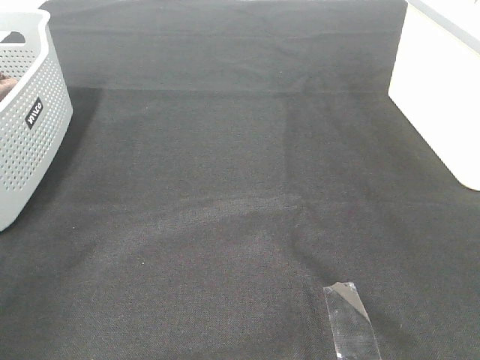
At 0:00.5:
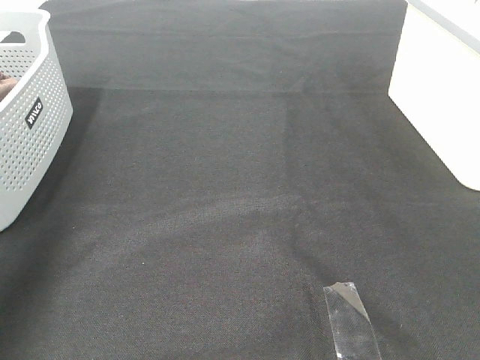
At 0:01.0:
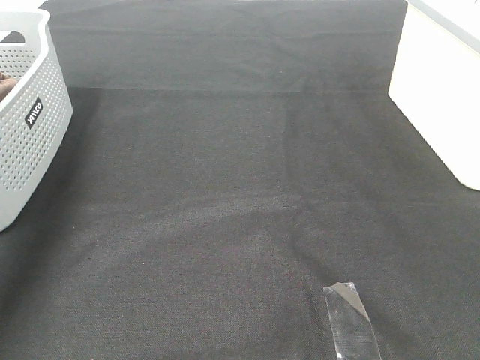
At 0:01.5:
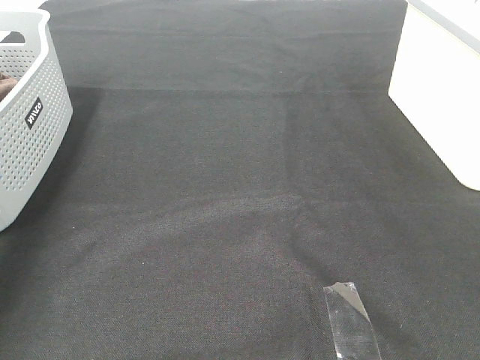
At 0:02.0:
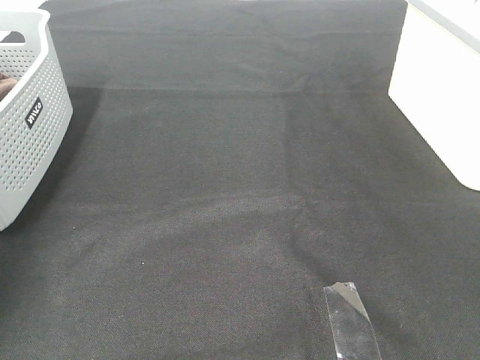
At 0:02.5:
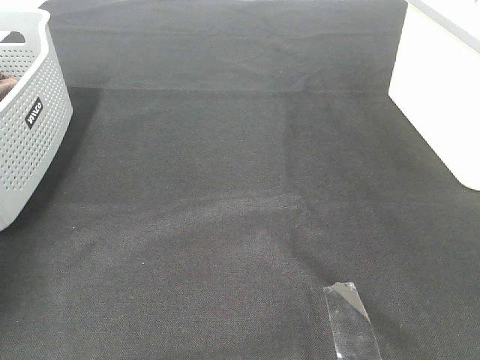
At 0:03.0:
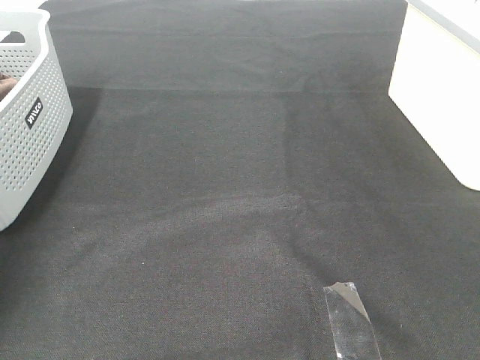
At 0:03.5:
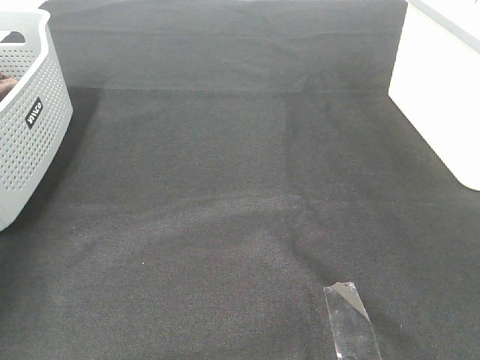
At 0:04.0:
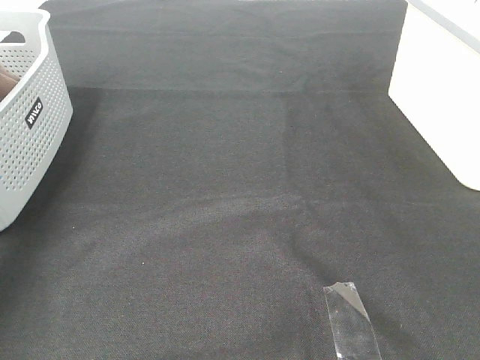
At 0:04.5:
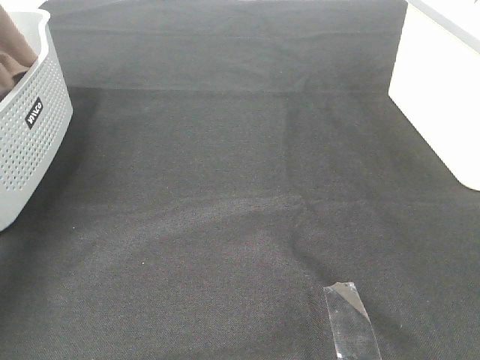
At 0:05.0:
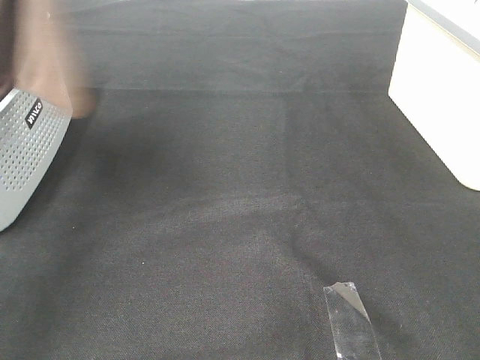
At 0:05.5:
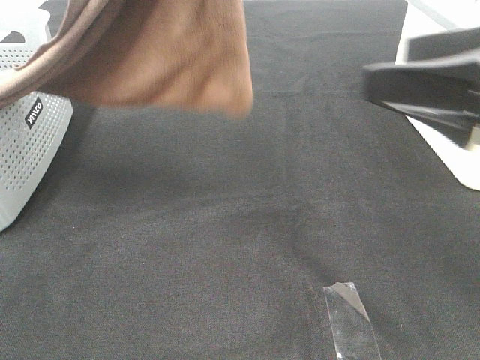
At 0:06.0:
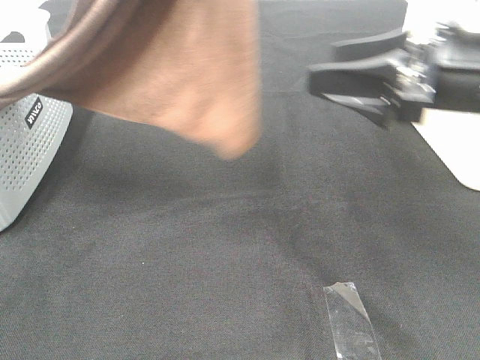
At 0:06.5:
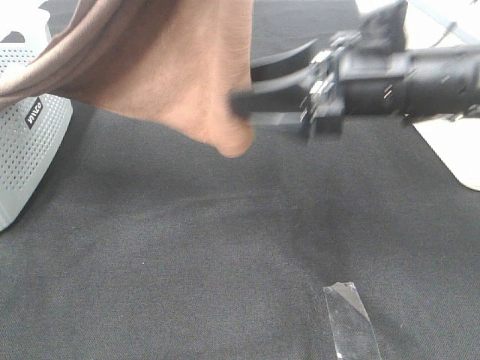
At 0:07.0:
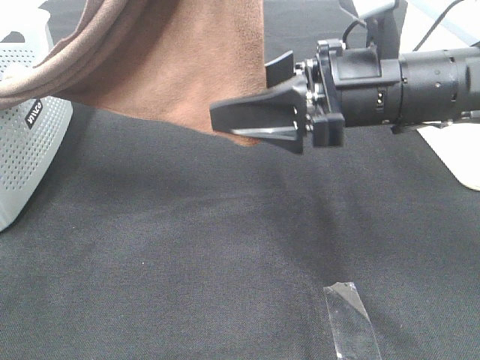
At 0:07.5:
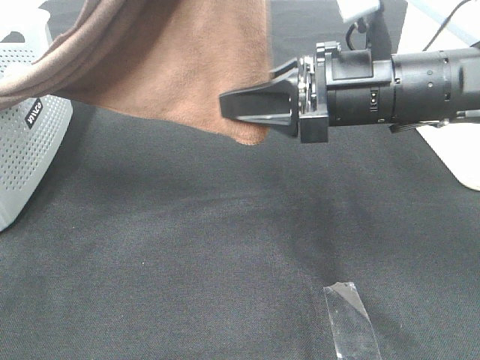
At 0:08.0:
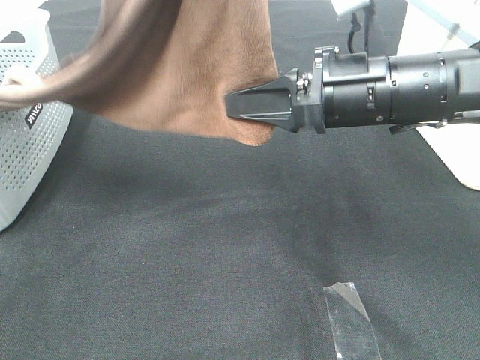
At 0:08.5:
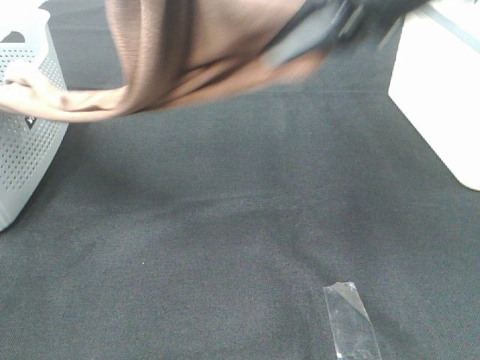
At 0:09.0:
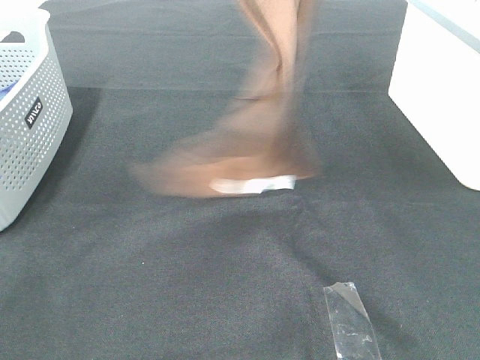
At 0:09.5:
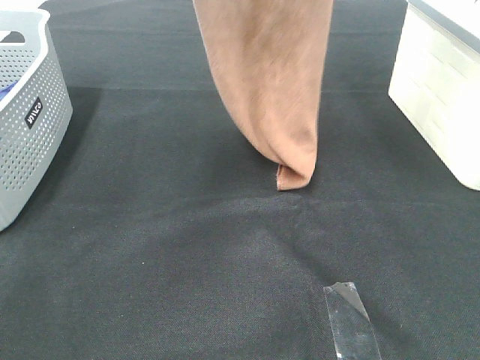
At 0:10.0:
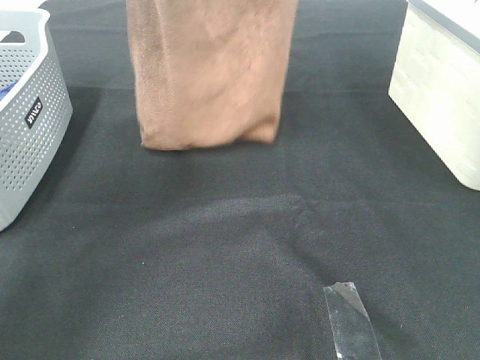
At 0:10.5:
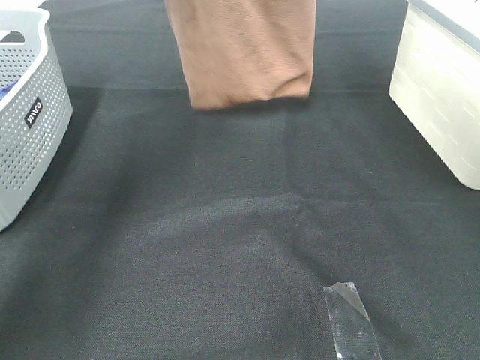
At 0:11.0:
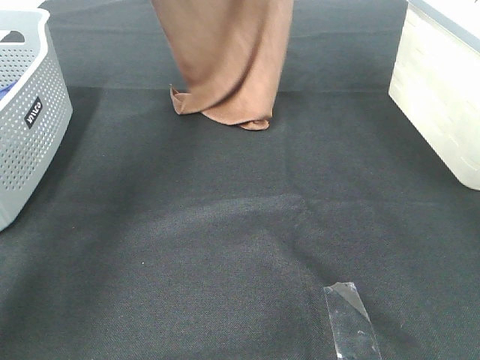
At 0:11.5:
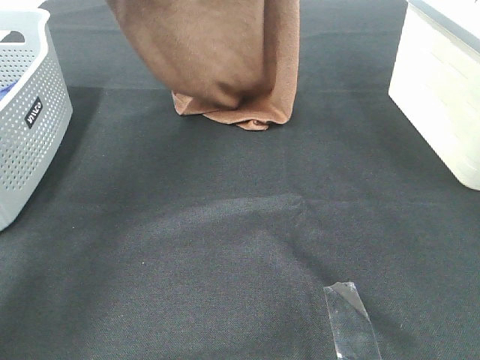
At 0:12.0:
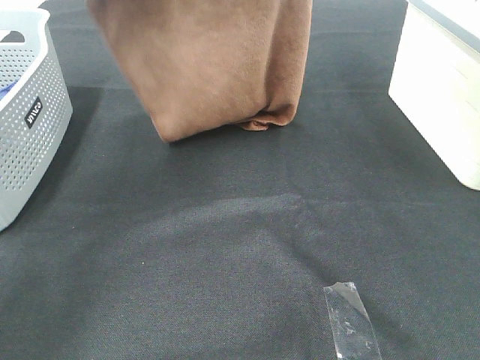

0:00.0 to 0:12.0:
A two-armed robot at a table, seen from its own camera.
Task of the whole recording: Remove the towel and place it.
Step, 0:04.5 to 0:07.0: Right hand: grab a corner of the brown towel and straighten it.
0:00.0 to 0:02.0: The left gripper shifts some 40 cm forward and downward.
0:04.0 to 0:06.0: The left gripper shifts roughly 30 cm to the right and backward. Meanwhile the right gripper goes about 25 cm forward.
0:06.0 to 0:08.0: The right gripper moves to the left, approximately 5 cm, and closes its fingers.
0:08.0 to 0:10.0: The left gripper is displaced forward and to the left by roughly 20 cm, while the right gripper heads upward and forward, covering about 30 cm.
0:10.0 to 0:12.0: The left gripper travels downward and backward by roughly 10 cm. Meanwhile the right gripper is displaced backward by approximately 5 cm.

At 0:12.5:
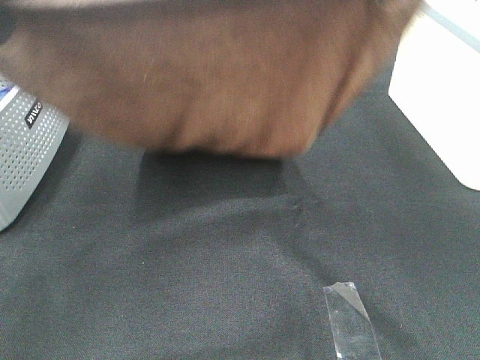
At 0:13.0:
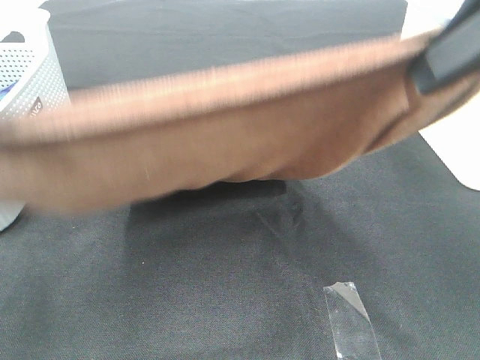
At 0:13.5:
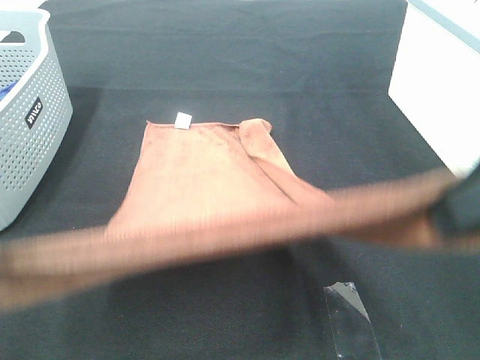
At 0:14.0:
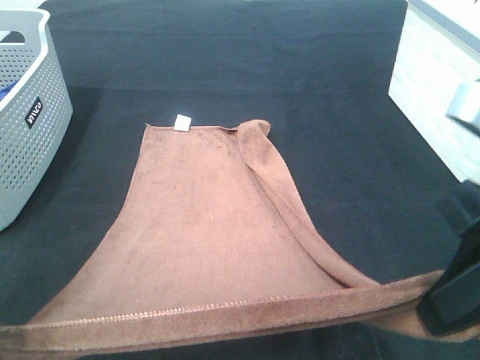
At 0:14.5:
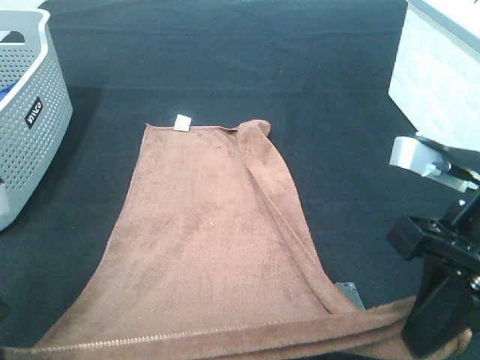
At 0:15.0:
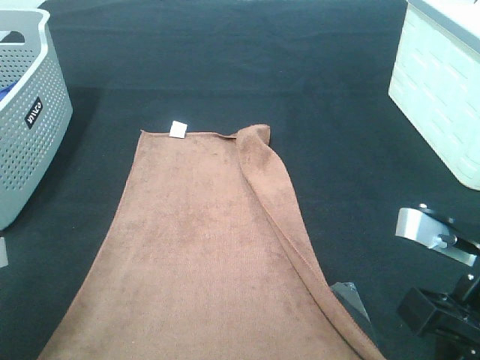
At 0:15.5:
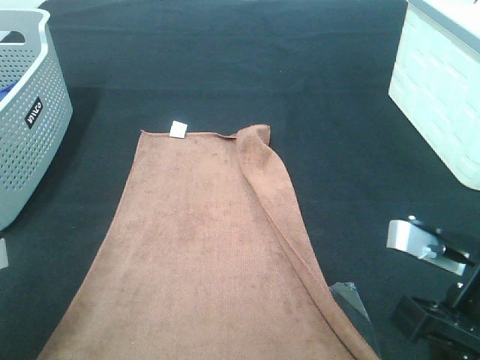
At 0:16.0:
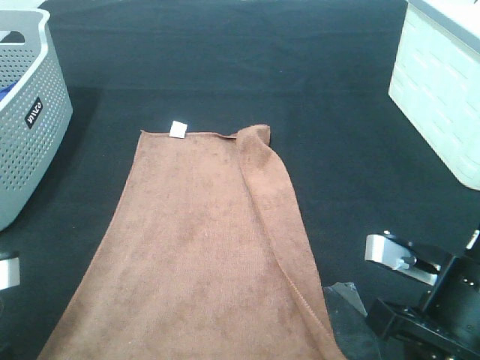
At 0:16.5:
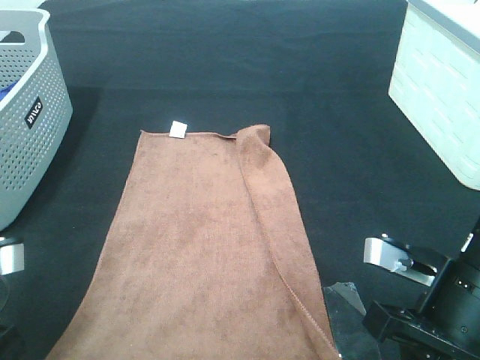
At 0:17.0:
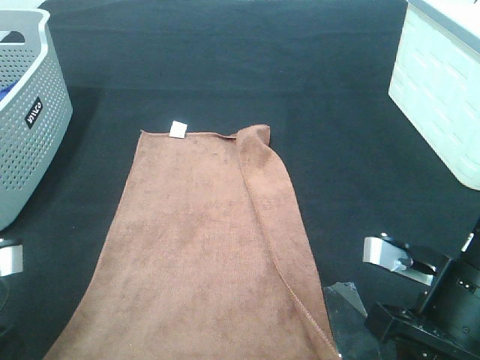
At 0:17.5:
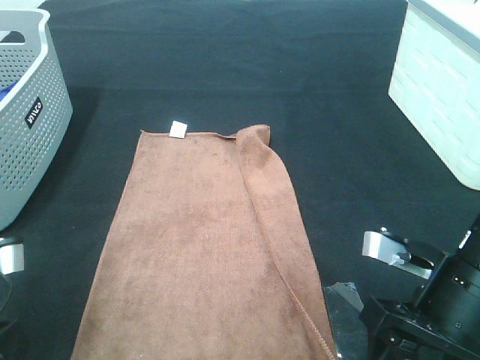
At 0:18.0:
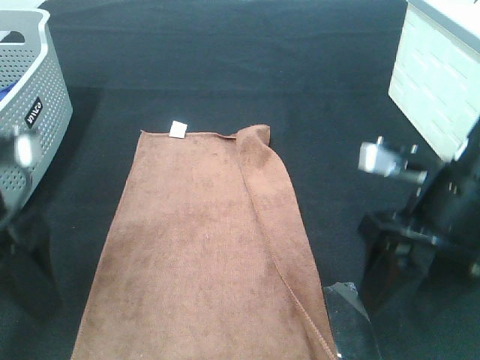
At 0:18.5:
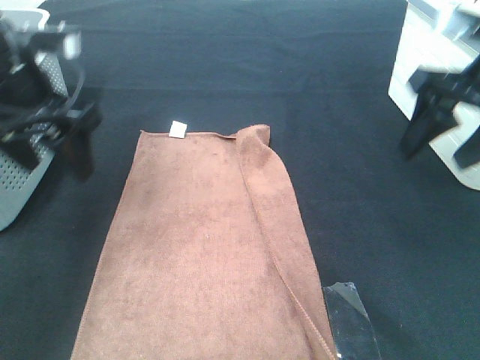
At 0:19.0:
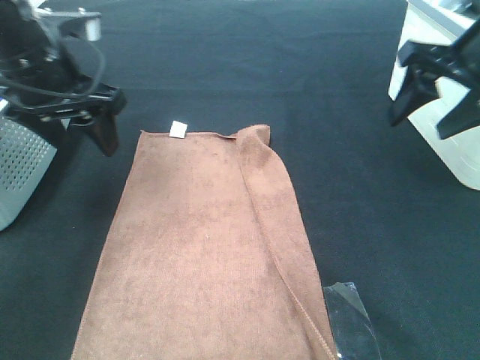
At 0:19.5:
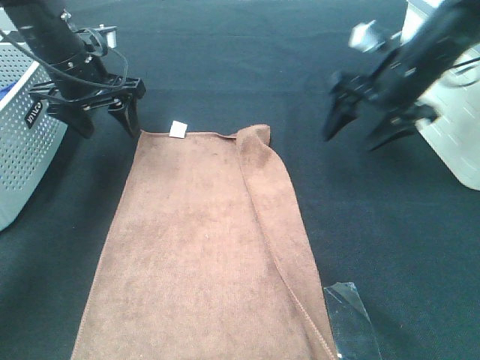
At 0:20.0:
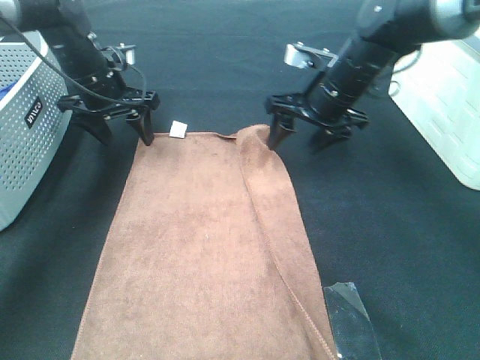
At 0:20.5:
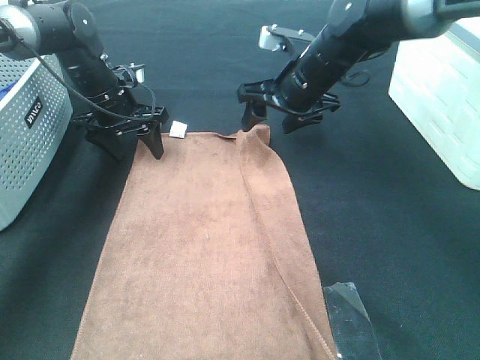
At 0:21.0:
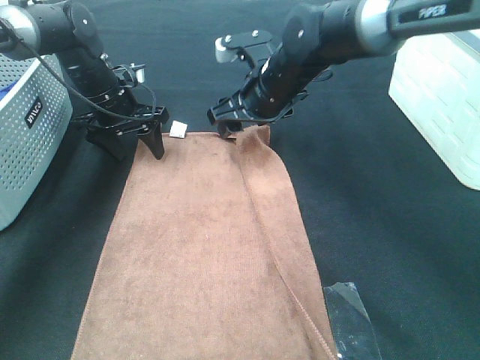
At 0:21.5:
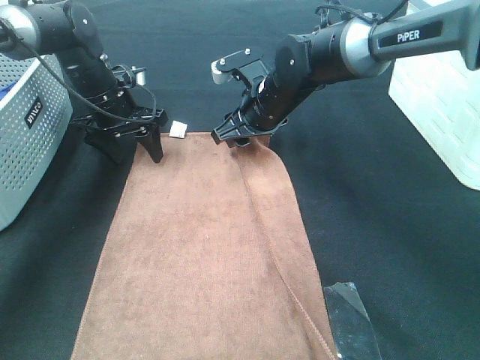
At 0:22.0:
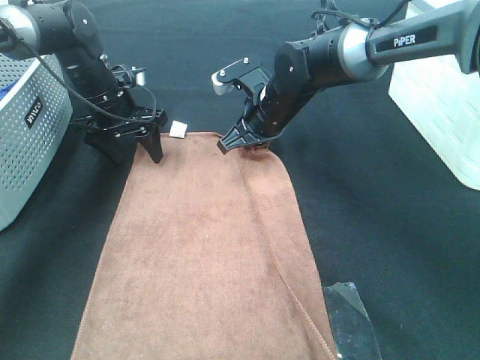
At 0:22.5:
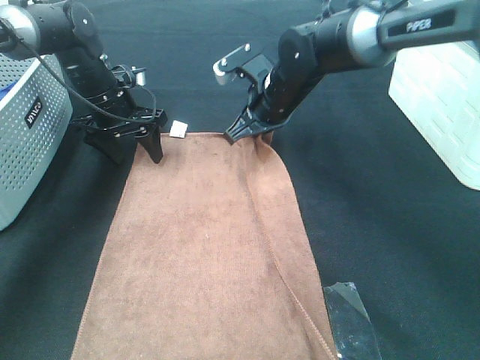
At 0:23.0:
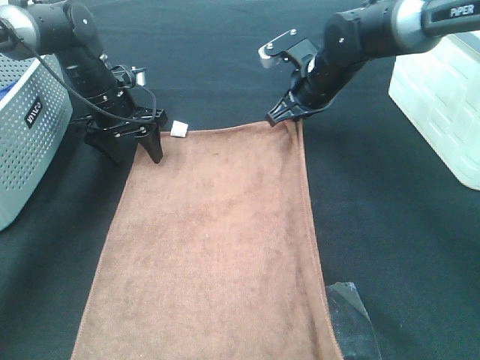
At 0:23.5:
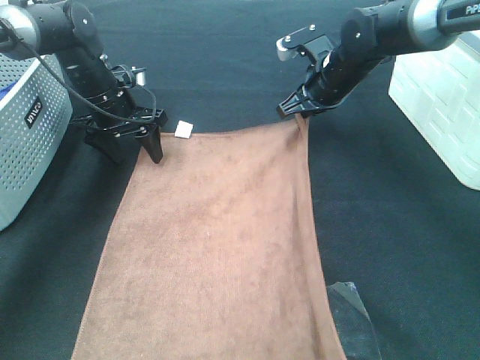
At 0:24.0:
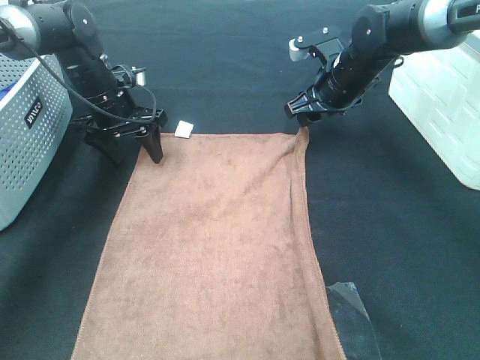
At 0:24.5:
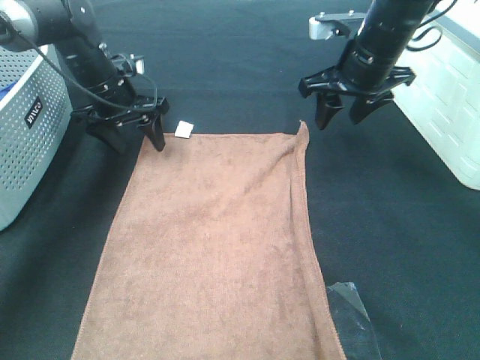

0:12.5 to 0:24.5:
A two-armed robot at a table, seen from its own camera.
Task of the whole recording: Remove the towel and place it.
0:12.5 to 0:14.5: Both grippers travel together downward and backward, about 20 cm.
0:14.5 to 0:16.5: The right gripper shifts some 10 cm downward.
0:16.5 to 0:18.5: The right gripper goes about 20 cm forward, upward and to the right, and opens its fingers. The left gripper heads forward and upward, covering roughly 20 cm, and opens up.
0:18.5 to 0:20.5: The left gripper shifts some 25 cm forward and downward. The right gripper is displaced to the left, forward and downward by about 25 cm.
0:20.5 to 0:22.5: The right gripper closes up.
0:22.5 to 0:24.5: The right gripper is displaced to the right and upward by roughly 15 cm, and opens its fingers.

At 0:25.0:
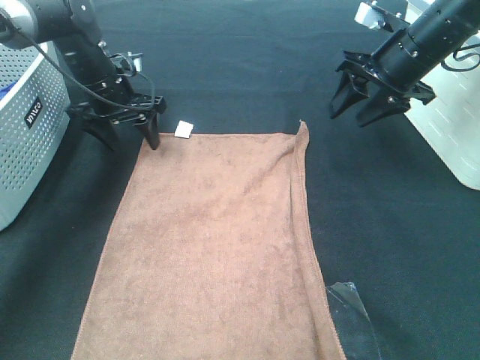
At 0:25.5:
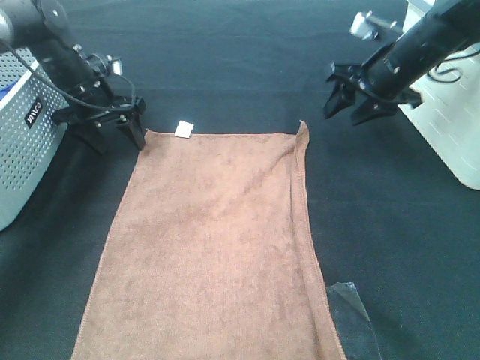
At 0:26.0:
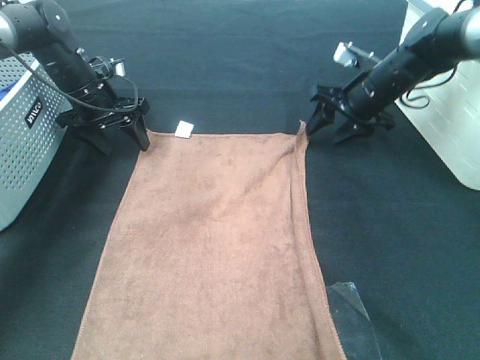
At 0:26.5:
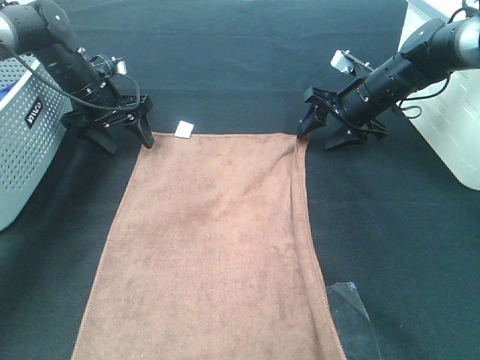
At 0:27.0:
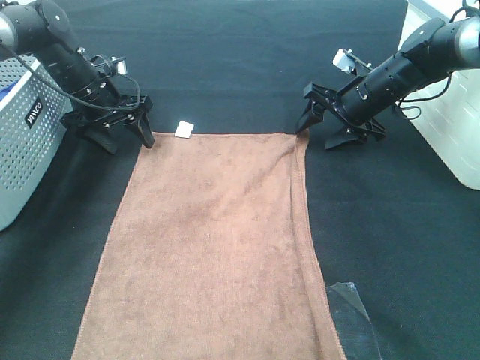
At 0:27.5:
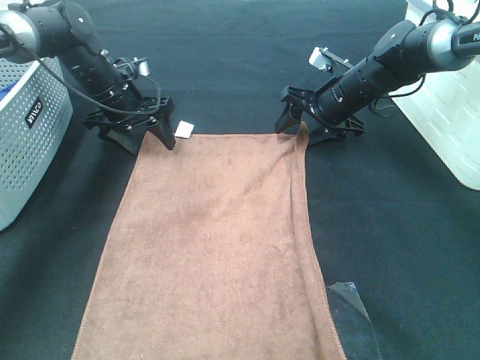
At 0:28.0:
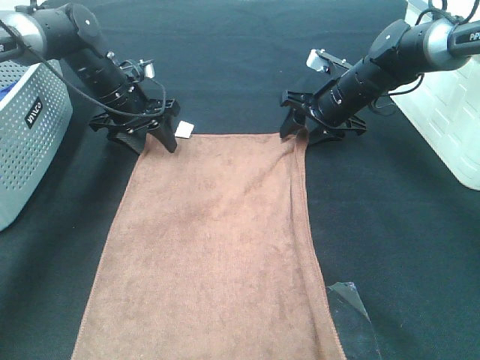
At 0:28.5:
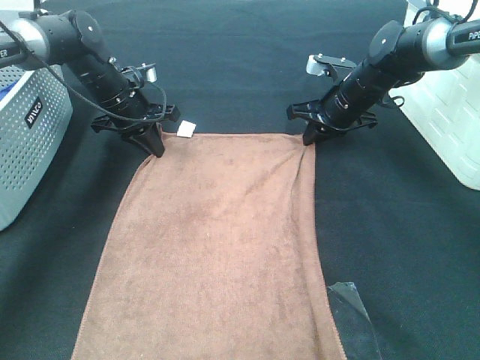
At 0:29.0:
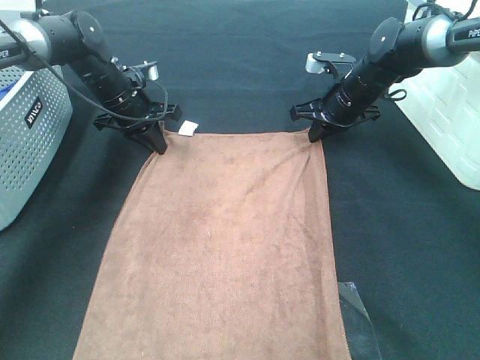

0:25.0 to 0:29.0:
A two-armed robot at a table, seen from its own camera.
Task of the whole recording: Remove the towel and place it.
0:25.0 to 0:27.0: The right gripper heads downward and forward, covering approximately 10 cm.
0:27.0 to 0:29.0: The right gripper closes up, while the left gripper closes up.
